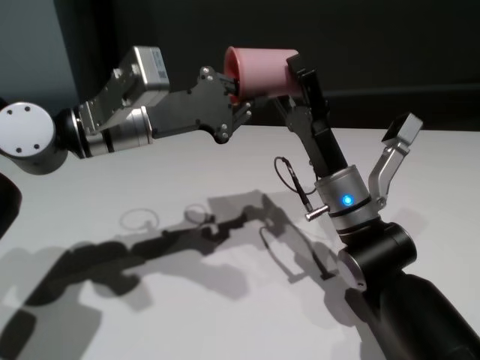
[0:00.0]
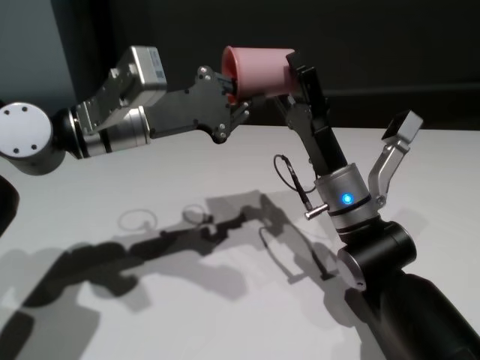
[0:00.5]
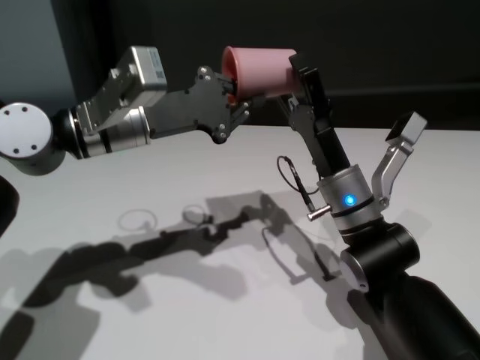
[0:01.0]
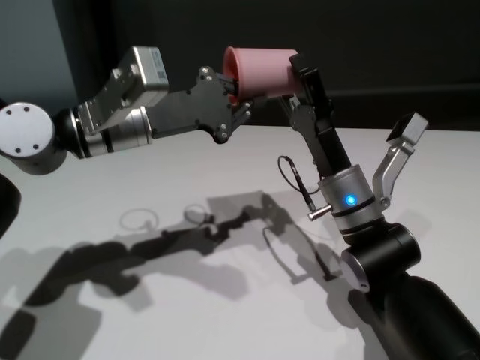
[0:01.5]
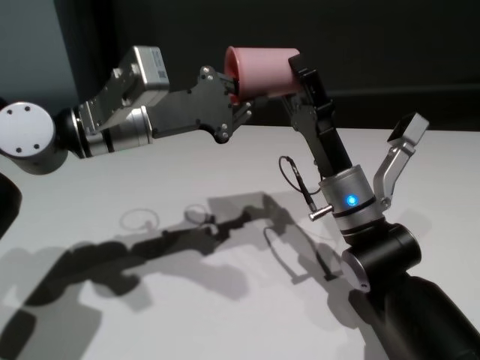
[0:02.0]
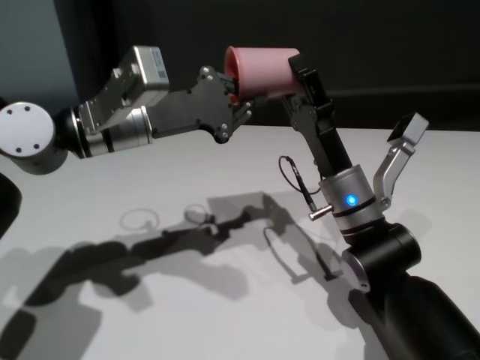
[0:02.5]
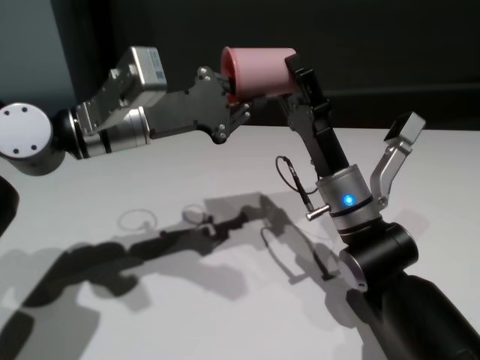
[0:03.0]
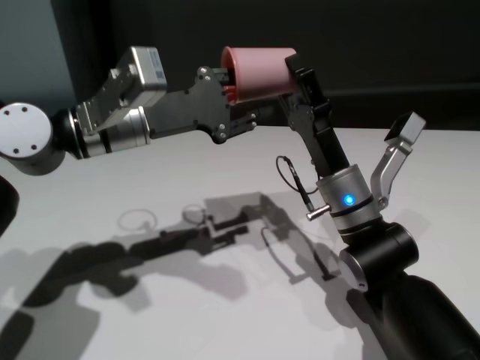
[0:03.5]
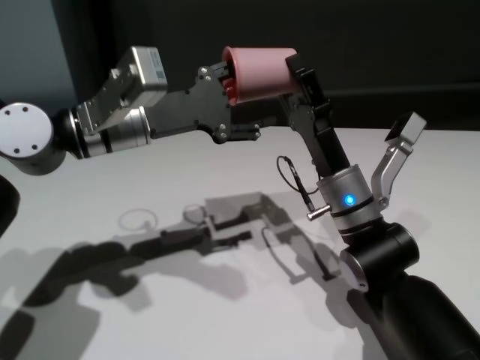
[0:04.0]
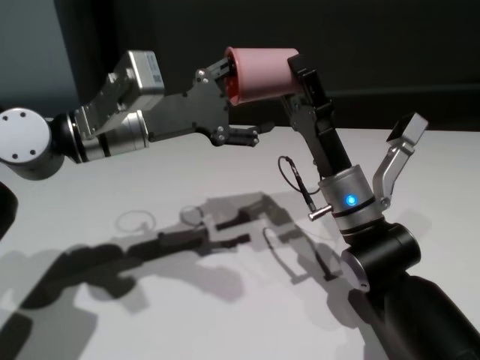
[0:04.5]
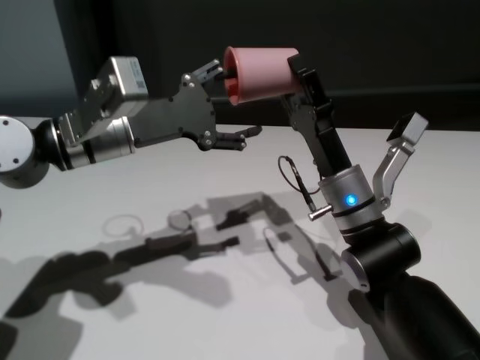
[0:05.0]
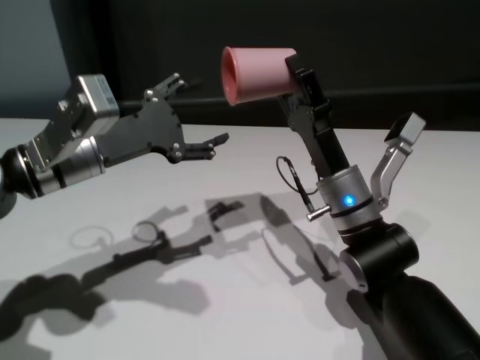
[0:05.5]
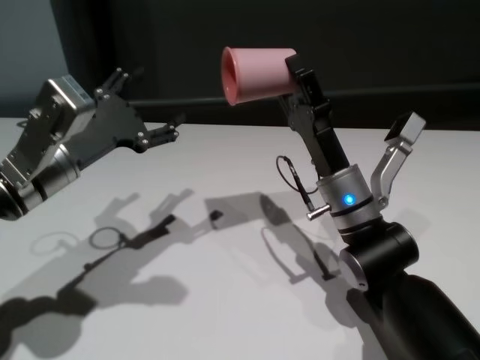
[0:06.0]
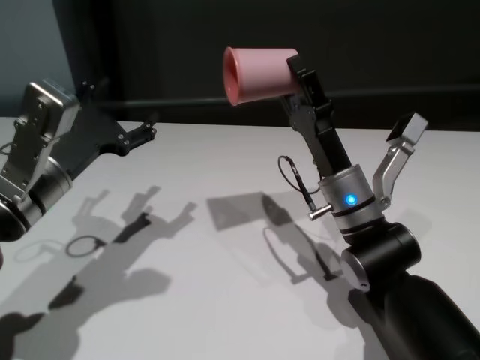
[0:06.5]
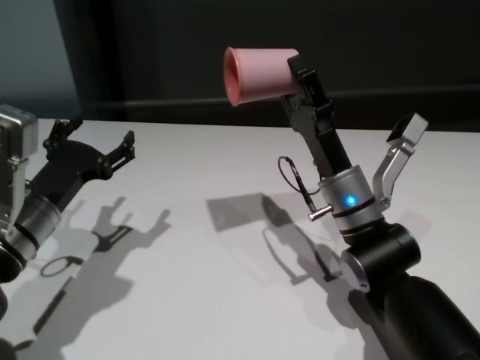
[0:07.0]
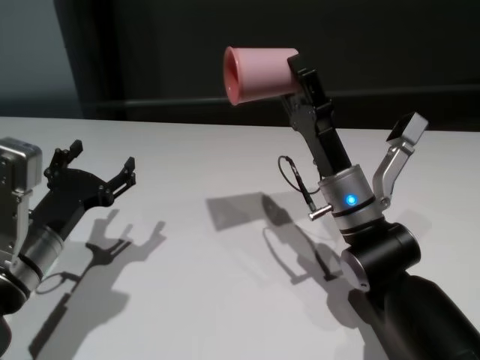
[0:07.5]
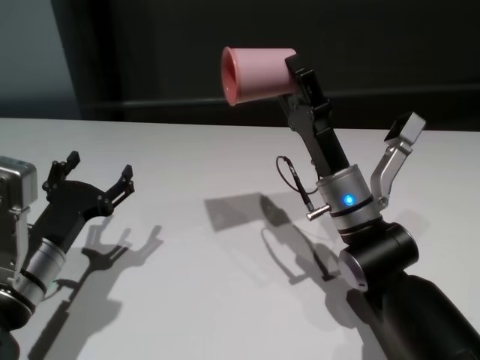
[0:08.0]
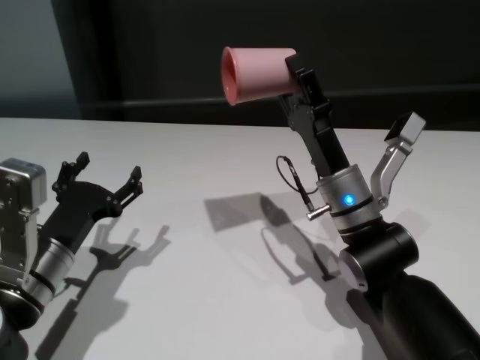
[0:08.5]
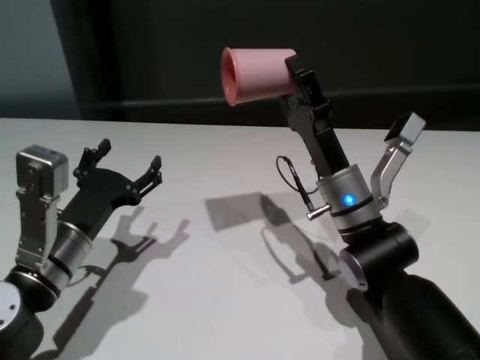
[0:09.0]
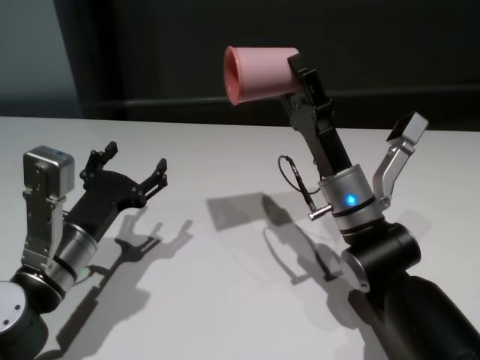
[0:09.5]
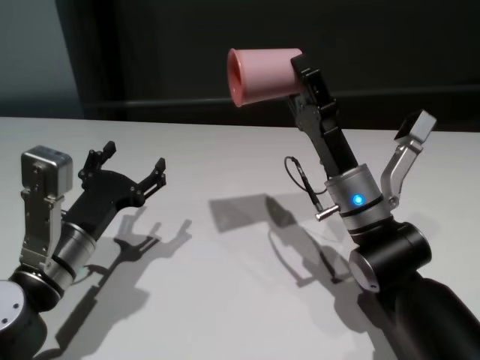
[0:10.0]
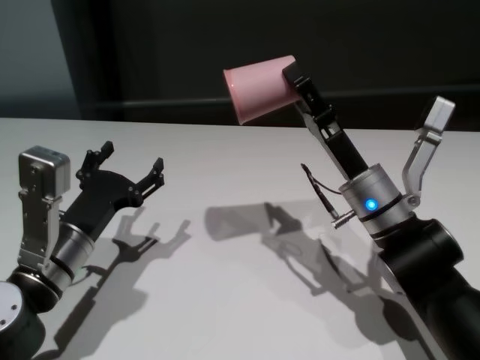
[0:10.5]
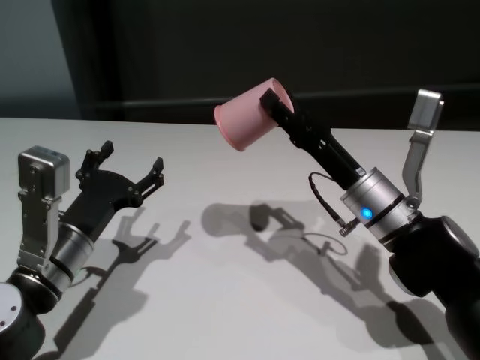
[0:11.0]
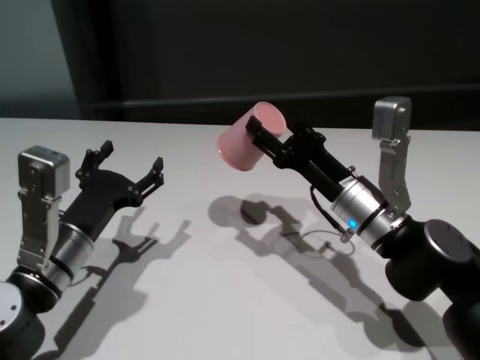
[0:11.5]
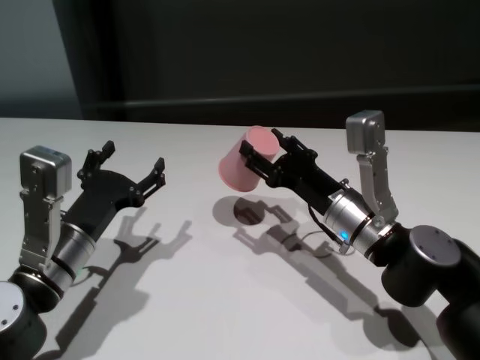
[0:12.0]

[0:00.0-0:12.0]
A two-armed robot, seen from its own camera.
Task of the whole recording: On the white table pick up the cup with one hand and transfer it to the other hand before turning it over.
Step, 0:00.0 to 0:05.0: Pass the cup to the right gripper.

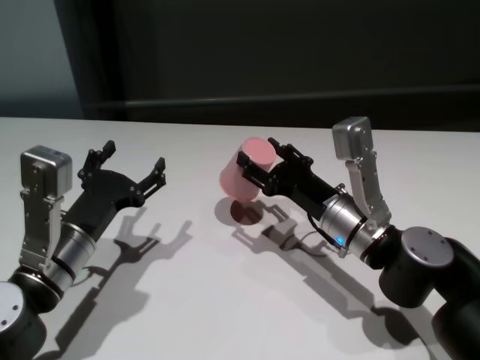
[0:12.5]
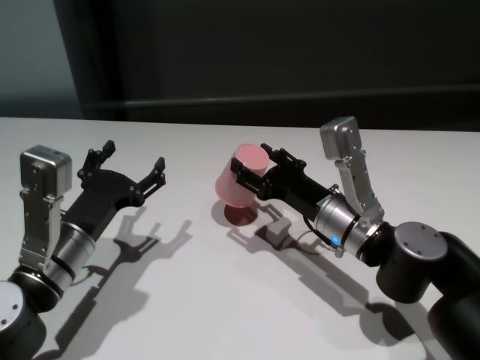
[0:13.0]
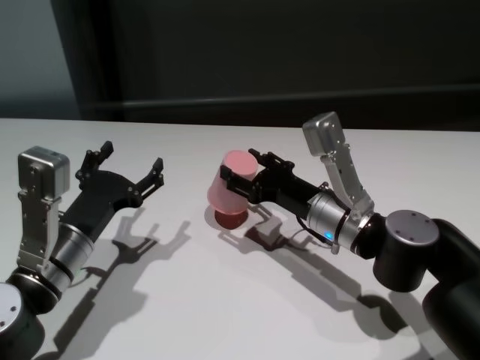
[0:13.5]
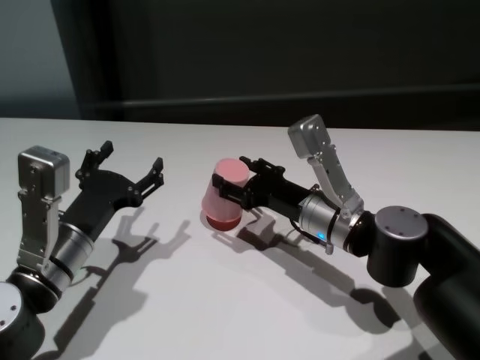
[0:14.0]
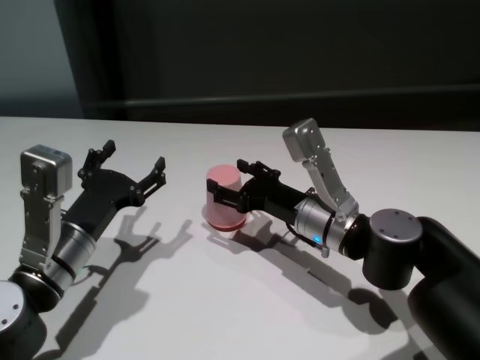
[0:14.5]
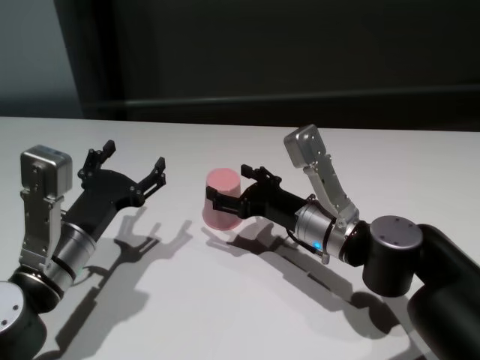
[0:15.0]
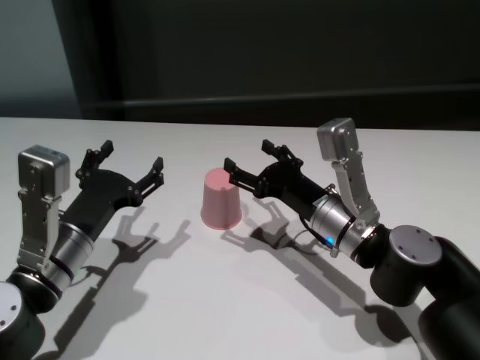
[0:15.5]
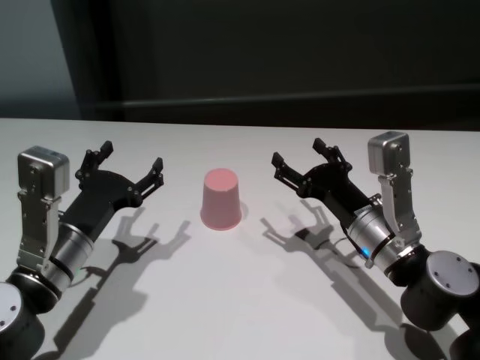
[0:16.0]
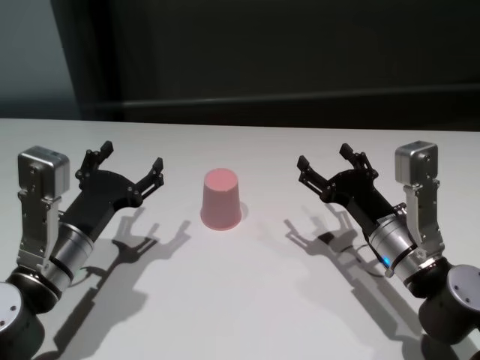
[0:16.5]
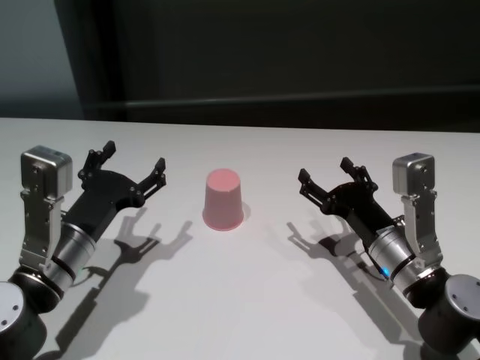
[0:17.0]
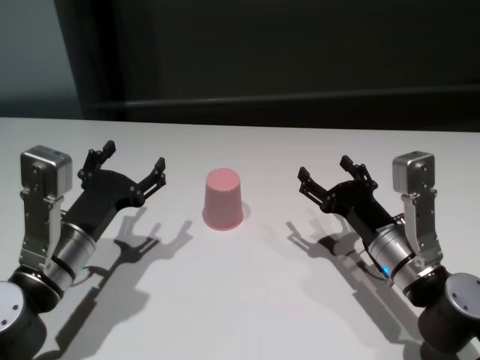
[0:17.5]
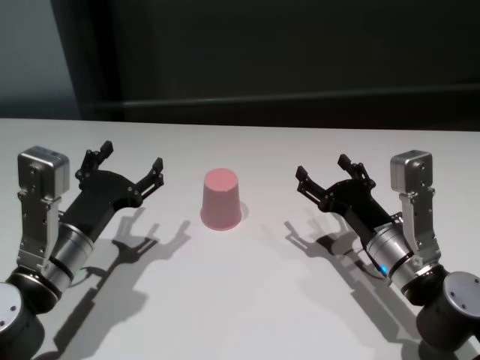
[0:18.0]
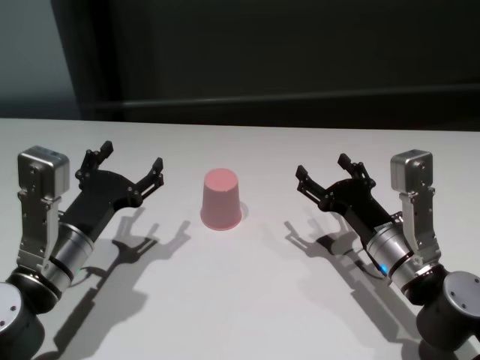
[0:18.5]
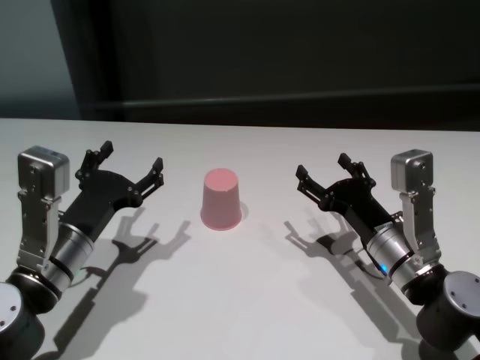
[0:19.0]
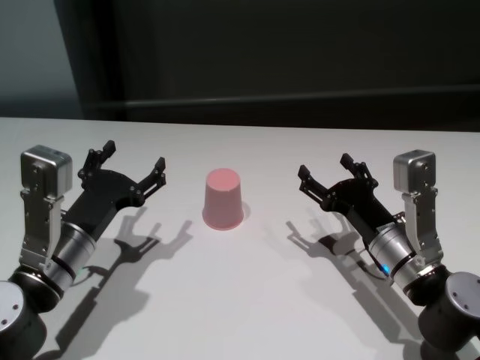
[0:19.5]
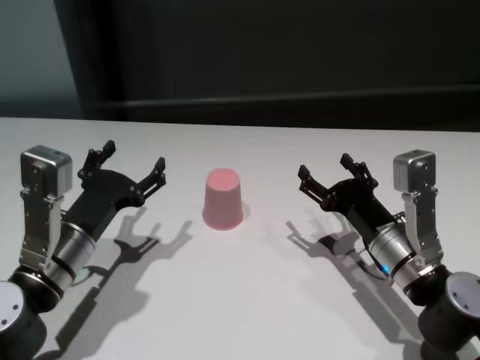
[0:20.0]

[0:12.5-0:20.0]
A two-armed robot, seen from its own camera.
Task of the whole recording: On the white table pick up the cup with one hand and transfer it to the other hand before turning it over.
Step, 0:12.5 to 0:15.0: Place the cup on the table with right gripper.
